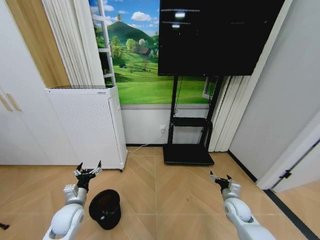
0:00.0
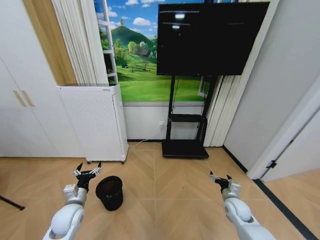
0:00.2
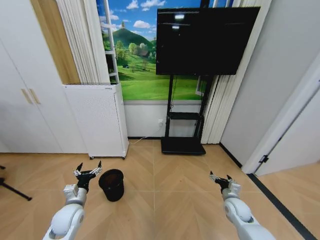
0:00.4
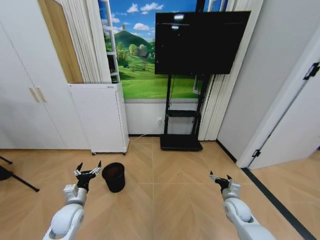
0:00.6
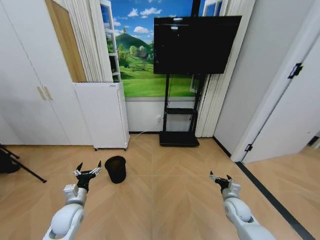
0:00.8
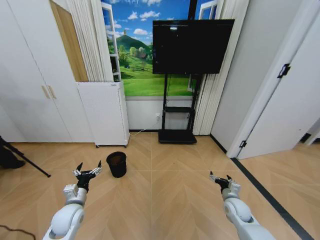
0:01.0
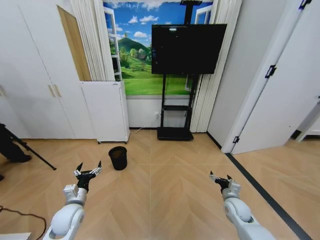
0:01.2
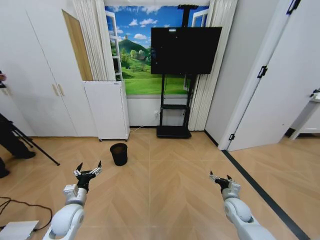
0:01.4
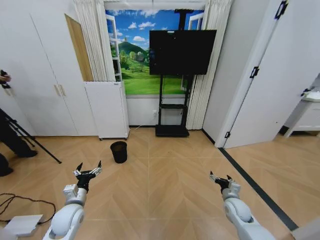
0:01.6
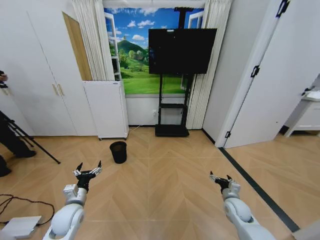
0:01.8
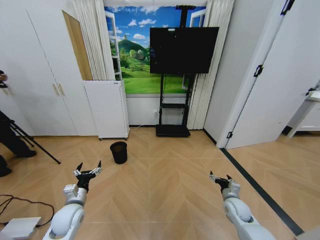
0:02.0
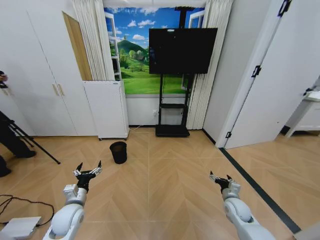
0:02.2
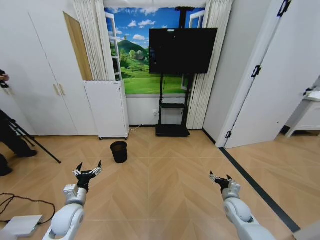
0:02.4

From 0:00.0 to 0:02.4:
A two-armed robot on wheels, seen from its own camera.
Task of the whole recording: Pick up the trash bin and place the garbage on the floor into it.
From 0:01.2 to 0:02.4: The two grippers keep their place.
